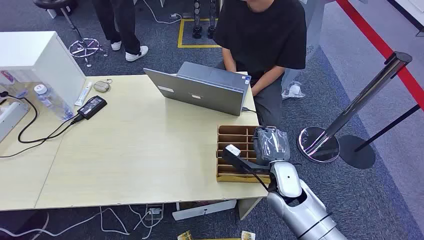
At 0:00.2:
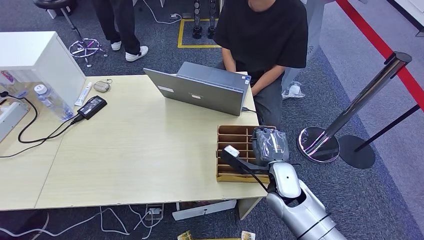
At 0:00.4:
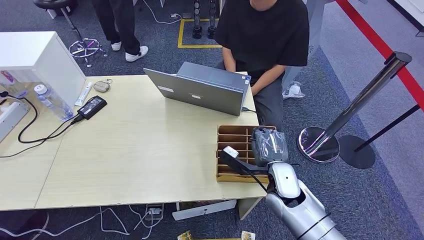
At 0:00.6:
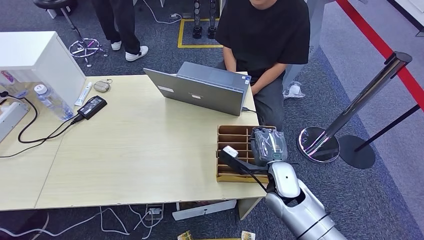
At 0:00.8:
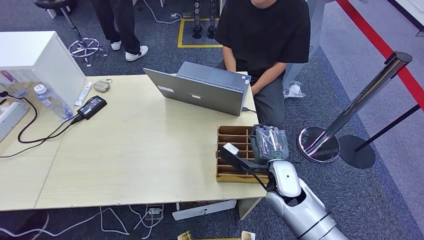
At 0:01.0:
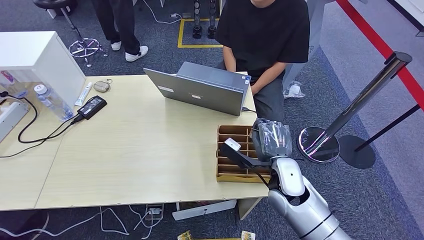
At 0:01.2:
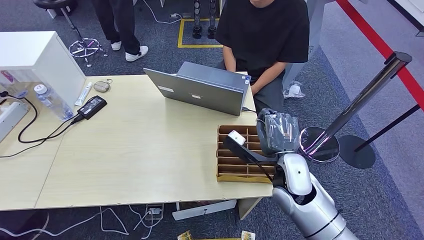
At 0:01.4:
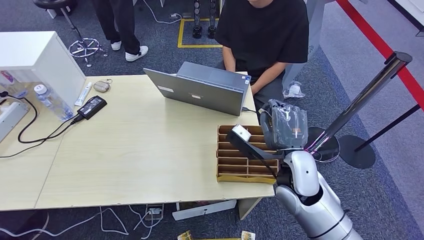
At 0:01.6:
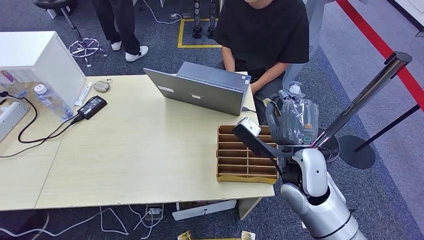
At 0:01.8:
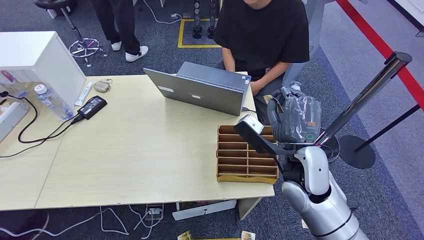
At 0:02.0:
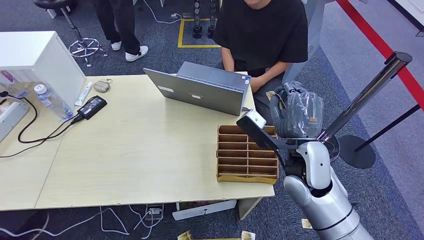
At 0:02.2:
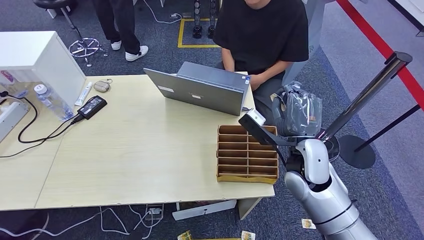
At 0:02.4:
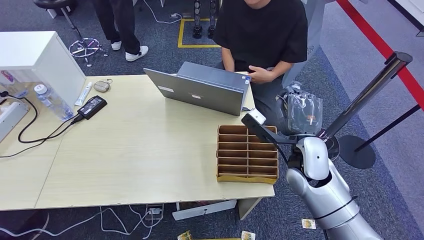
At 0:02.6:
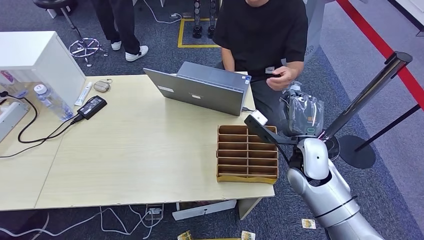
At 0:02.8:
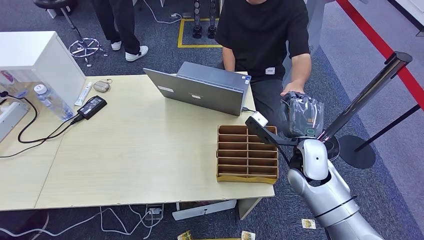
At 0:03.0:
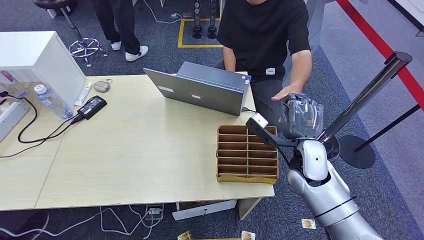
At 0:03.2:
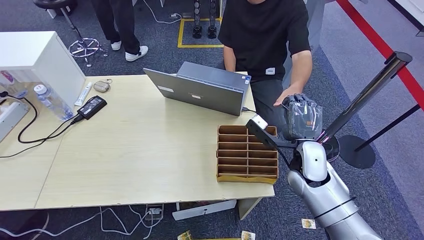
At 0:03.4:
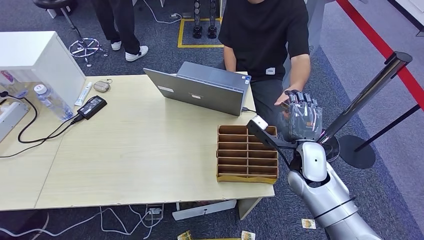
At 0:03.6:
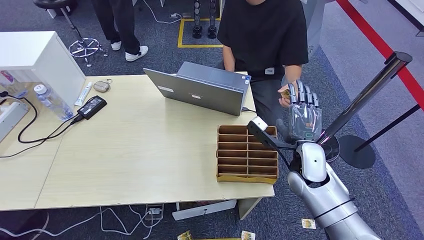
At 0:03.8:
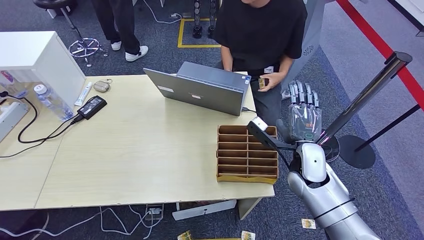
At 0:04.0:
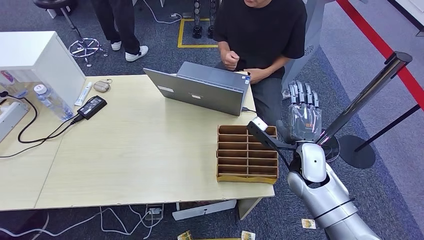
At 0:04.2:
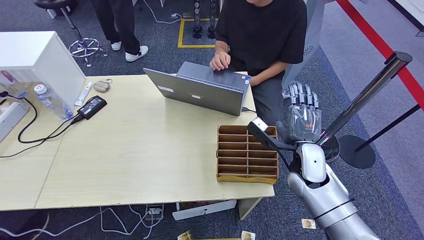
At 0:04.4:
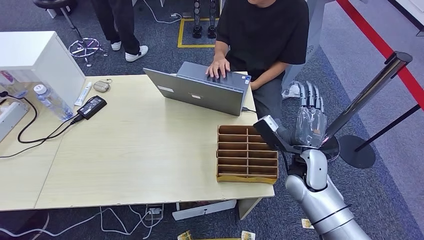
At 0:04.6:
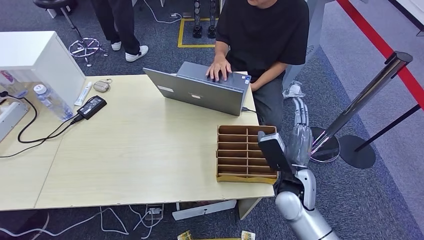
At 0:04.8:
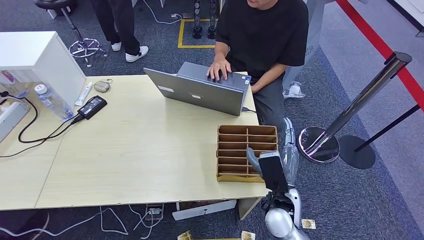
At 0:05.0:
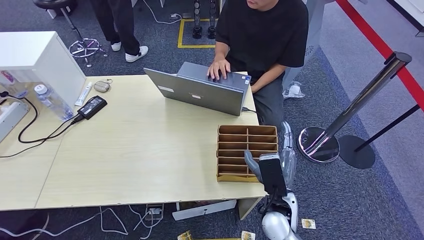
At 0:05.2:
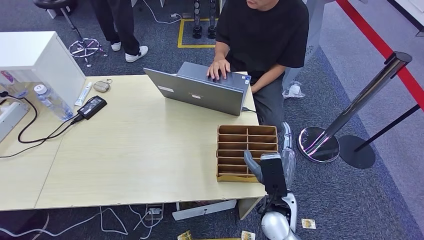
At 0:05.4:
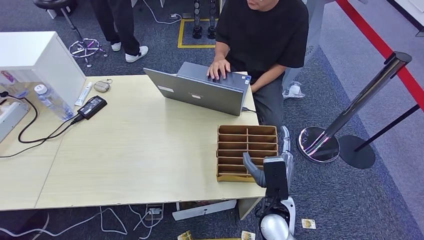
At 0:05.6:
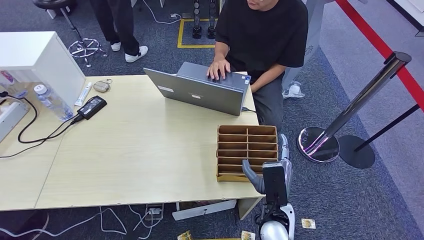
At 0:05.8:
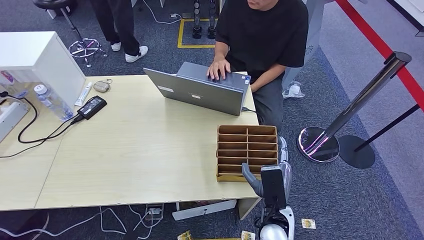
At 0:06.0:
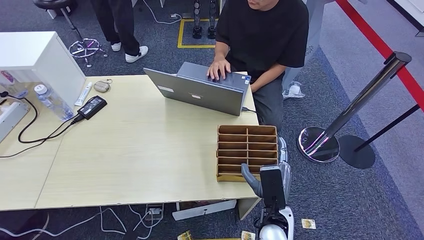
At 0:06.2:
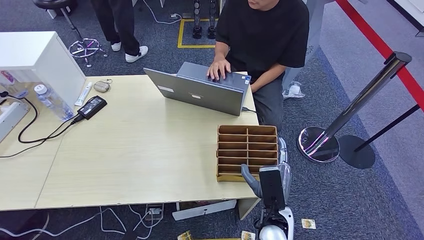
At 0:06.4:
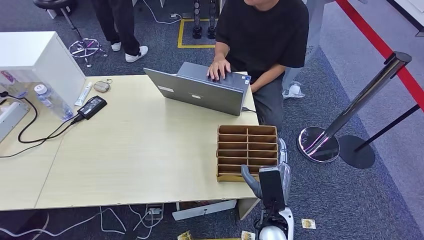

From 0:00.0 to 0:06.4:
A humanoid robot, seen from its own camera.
Step, from 0:00.0 to 0:01.4: Pick up the room card from the card holder.
Step, from 0:01.8 to 0:06.2: Hand the room card to the target.
From 0:01.6 to 0:03.2: The right hand is displaced downward, forward and to the right by some 10 cm.
From 0:03.2 to 0:04.8: The right hand shifts about 15 cm backward, to the left and downward.
From 0:04.8 to 0:06.4: The right hand shifts by about 5 cm.
